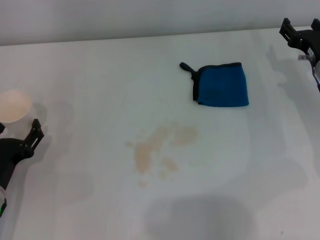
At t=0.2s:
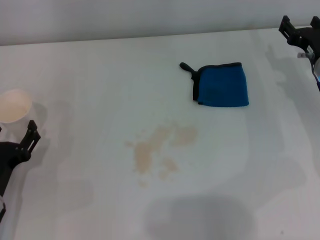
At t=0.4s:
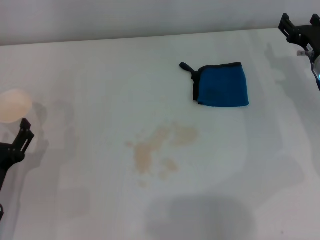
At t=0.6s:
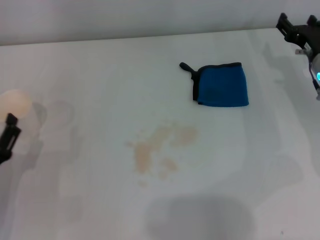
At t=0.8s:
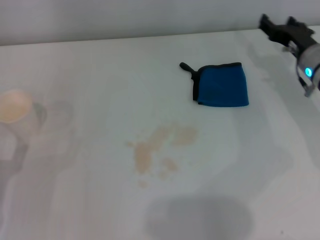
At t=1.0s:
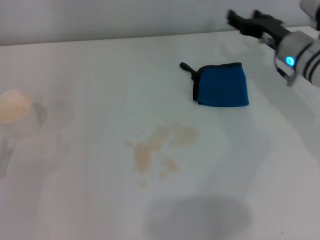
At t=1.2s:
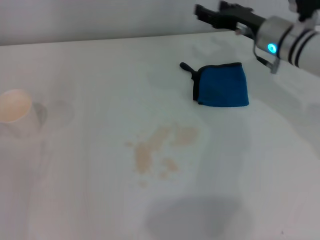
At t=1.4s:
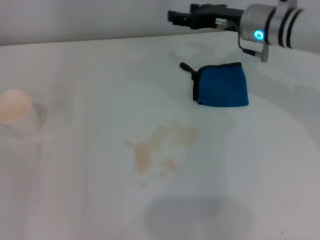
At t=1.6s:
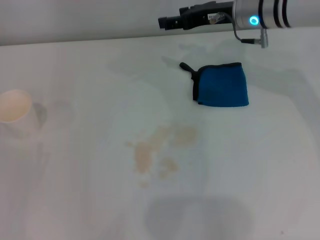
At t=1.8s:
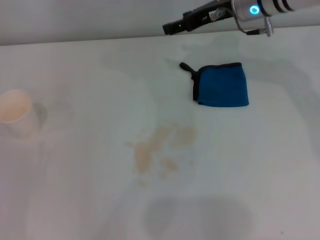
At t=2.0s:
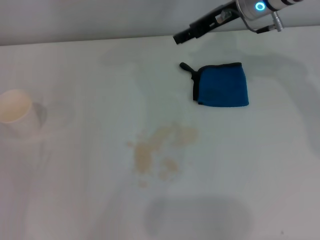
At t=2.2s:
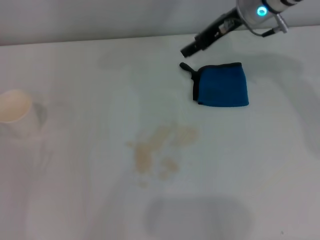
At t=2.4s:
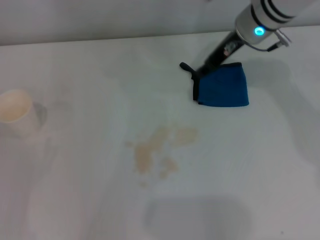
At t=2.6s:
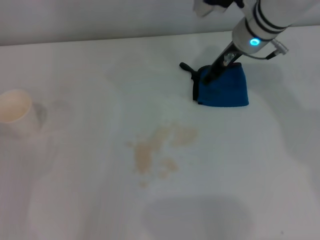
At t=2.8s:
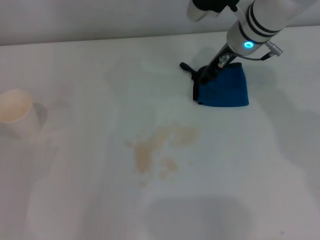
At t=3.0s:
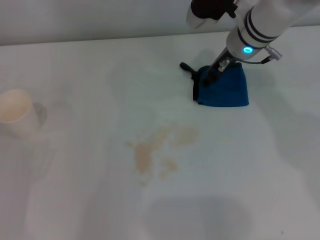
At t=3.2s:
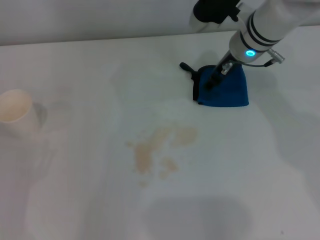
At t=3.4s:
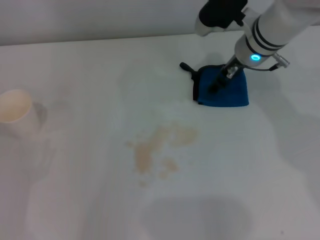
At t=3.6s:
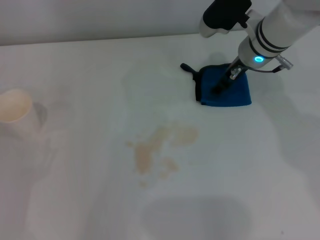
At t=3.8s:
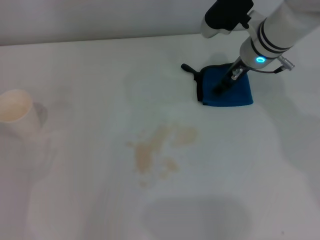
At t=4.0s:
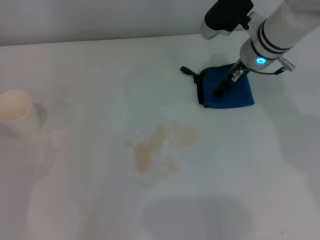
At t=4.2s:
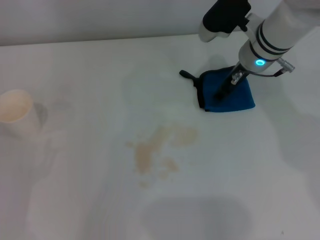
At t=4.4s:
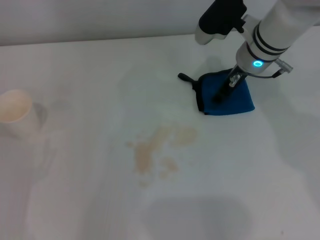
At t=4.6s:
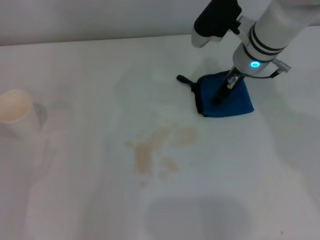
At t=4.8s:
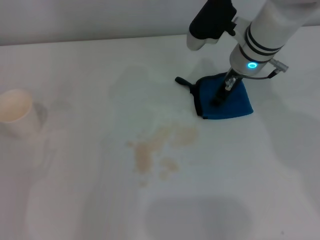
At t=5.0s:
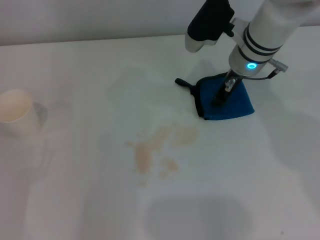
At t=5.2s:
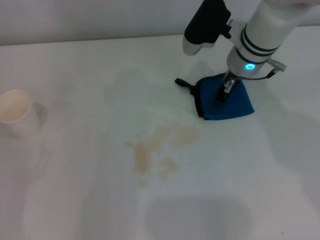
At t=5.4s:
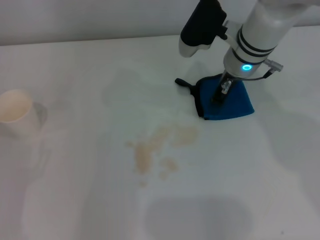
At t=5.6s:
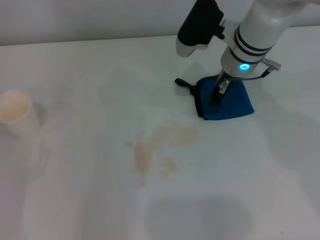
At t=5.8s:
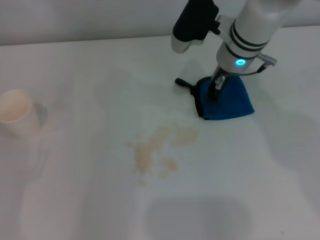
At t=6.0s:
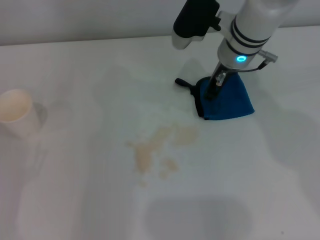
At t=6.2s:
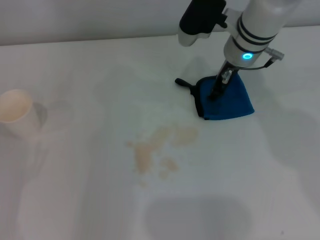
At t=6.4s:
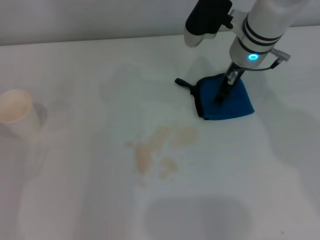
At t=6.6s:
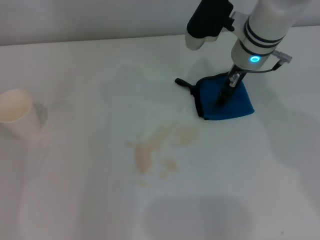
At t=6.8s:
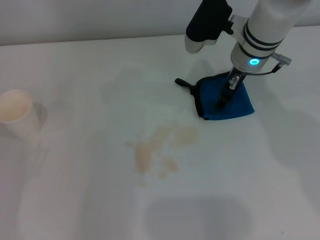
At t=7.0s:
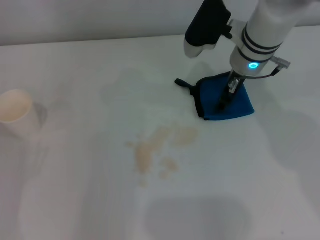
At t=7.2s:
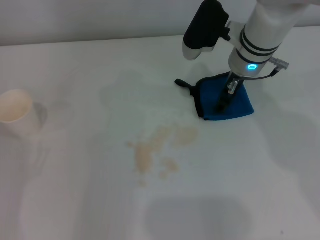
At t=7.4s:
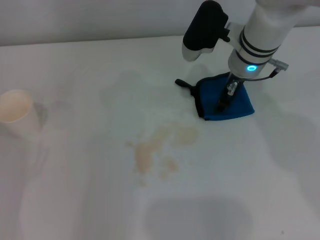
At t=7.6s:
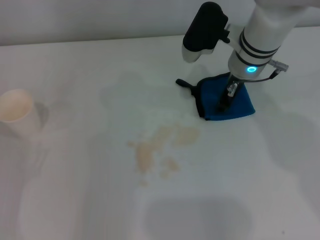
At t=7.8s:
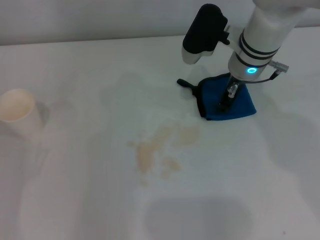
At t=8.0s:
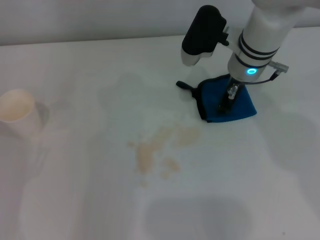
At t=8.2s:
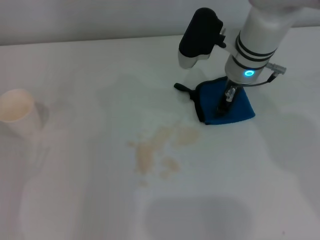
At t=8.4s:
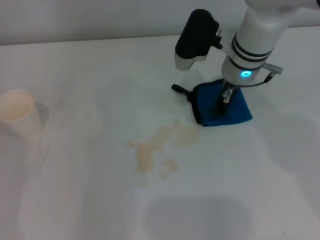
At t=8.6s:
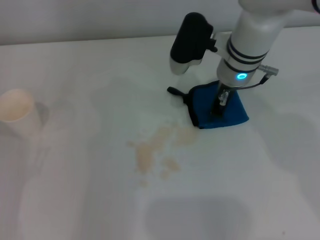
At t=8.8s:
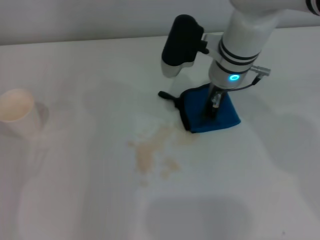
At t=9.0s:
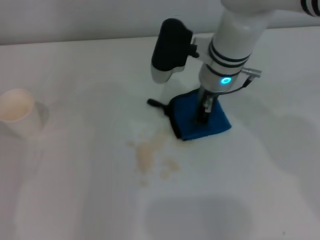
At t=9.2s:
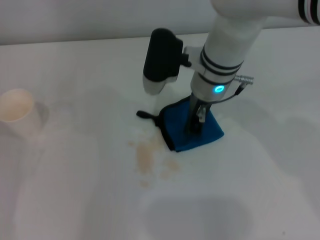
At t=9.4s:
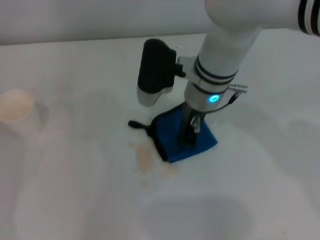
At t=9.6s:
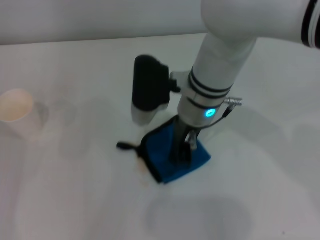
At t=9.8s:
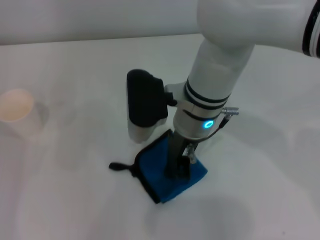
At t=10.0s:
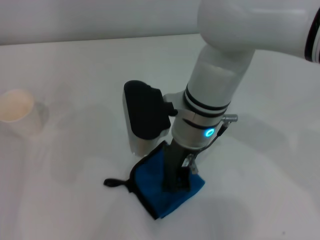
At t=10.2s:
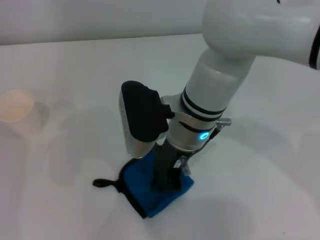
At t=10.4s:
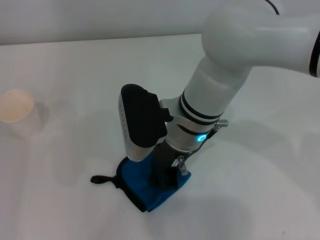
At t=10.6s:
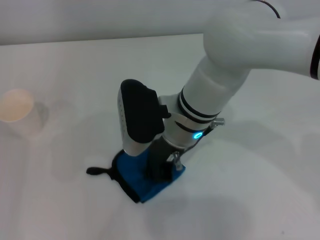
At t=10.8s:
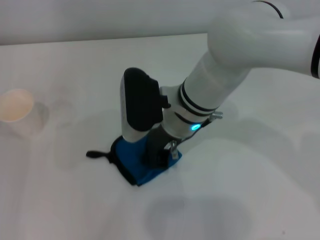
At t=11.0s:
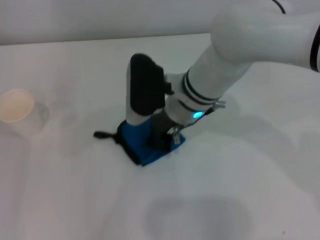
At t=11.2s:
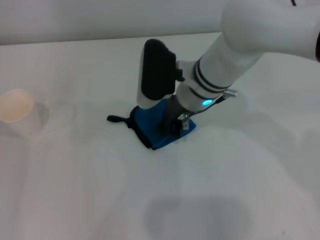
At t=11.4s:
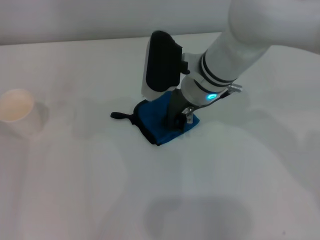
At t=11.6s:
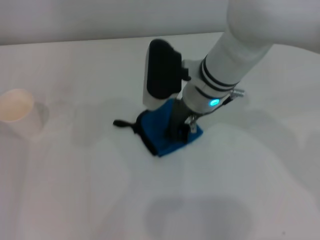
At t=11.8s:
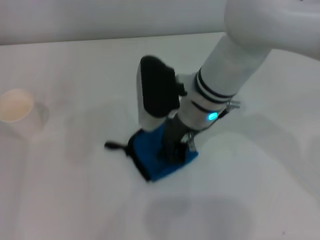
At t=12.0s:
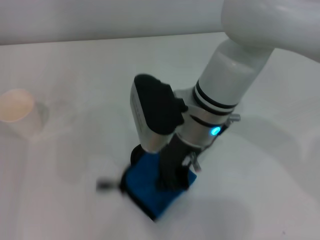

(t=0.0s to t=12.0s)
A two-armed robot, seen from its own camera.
Step, t=0.0s - t=3.6s: Grasp the rag with the right gripper.
t=0.0s - t=1.6s: The left gripper goes roughly 10 cm backward and to the left; the right gripper goes approximately 20 cm to the left, upward and forward.
t=3.0s - t=4.4s: The grippers move only a little.
t=4.4s - t=6.0s: The right gripper closes.
t=6.0s - t=7.6s: The right gripper opens up.
t=7.6s - t=9.0s: The right gripper is displaced to the left by roughly 5 cm, and closes its fingers.
t=9.0s - t=10.4s: The right gripper heads backward and to the left, covering some 10 cm.

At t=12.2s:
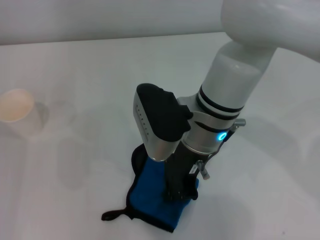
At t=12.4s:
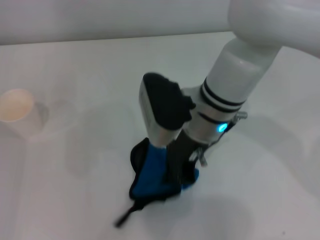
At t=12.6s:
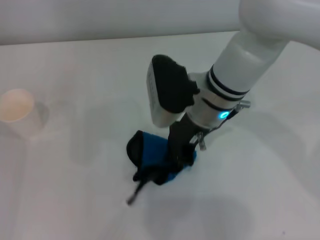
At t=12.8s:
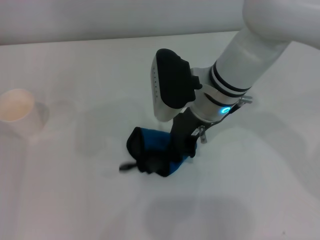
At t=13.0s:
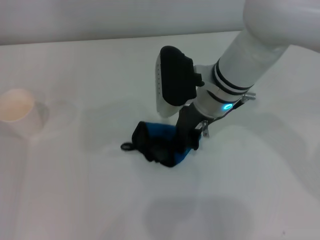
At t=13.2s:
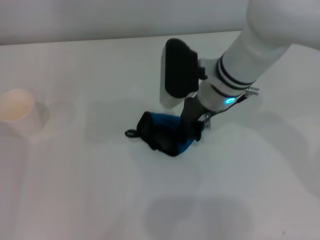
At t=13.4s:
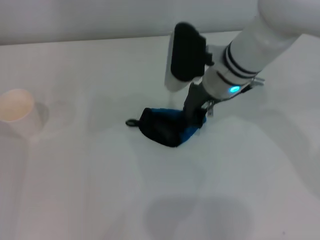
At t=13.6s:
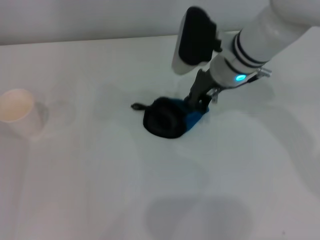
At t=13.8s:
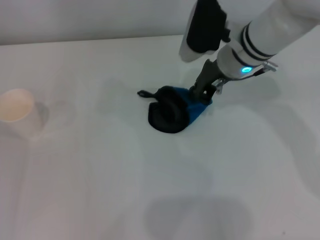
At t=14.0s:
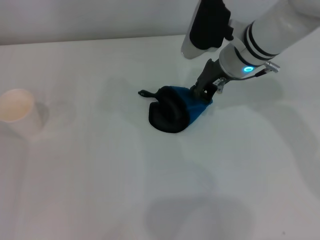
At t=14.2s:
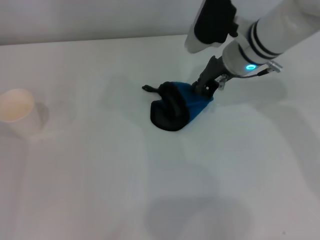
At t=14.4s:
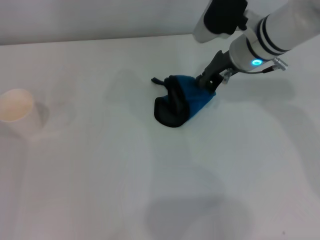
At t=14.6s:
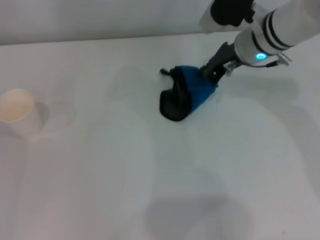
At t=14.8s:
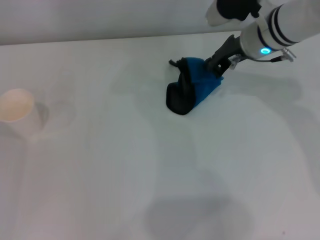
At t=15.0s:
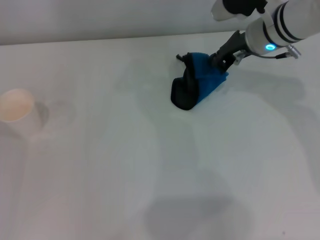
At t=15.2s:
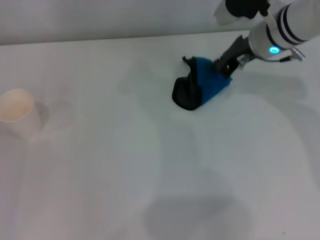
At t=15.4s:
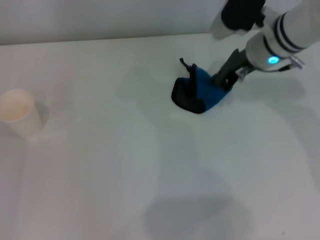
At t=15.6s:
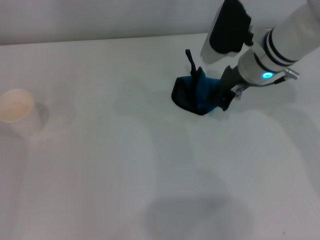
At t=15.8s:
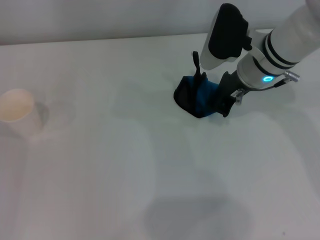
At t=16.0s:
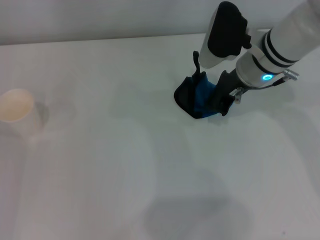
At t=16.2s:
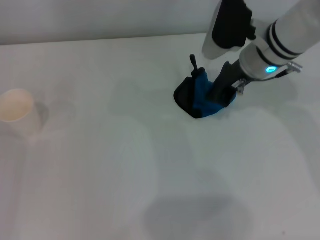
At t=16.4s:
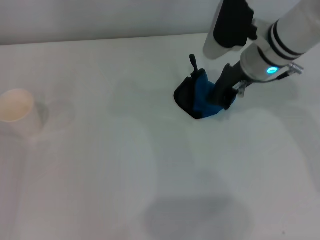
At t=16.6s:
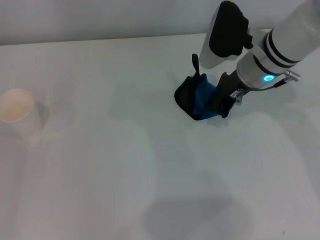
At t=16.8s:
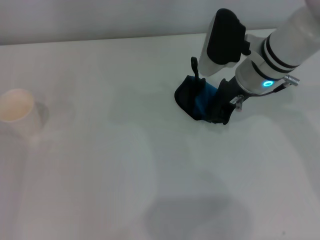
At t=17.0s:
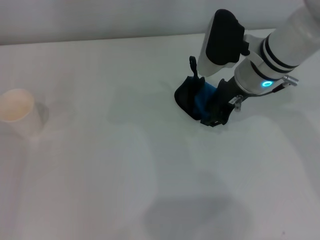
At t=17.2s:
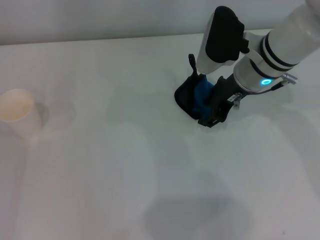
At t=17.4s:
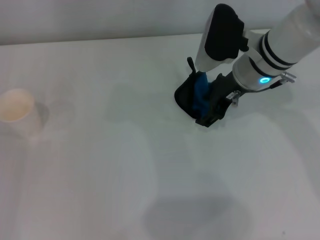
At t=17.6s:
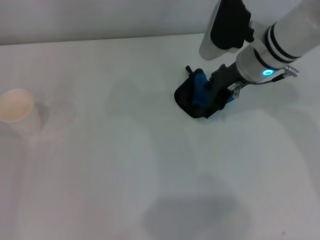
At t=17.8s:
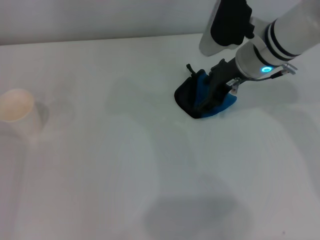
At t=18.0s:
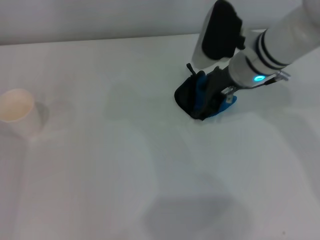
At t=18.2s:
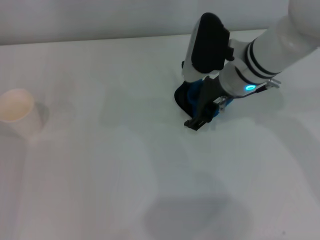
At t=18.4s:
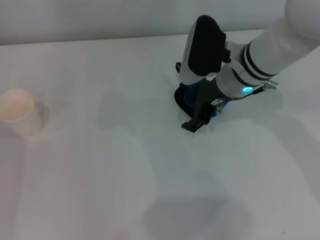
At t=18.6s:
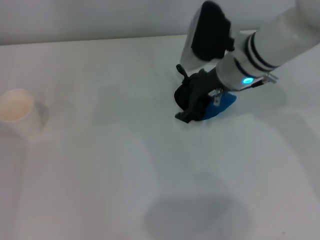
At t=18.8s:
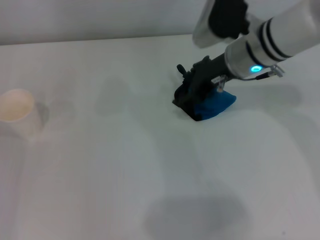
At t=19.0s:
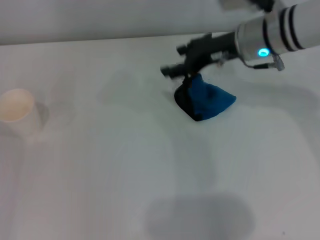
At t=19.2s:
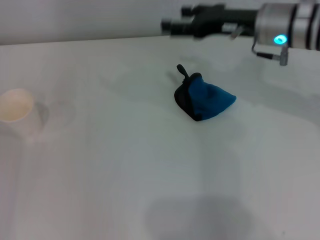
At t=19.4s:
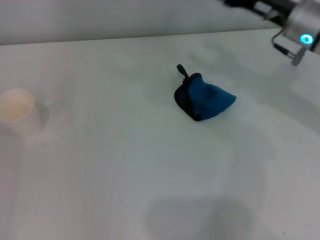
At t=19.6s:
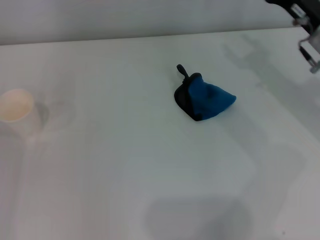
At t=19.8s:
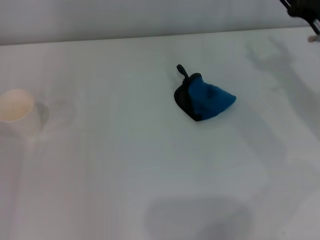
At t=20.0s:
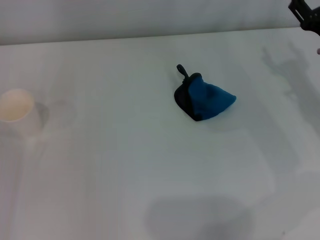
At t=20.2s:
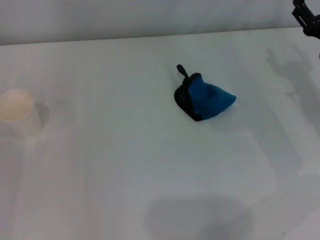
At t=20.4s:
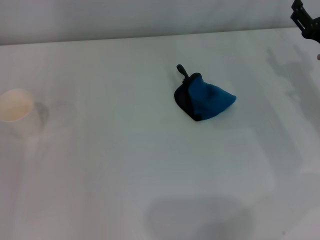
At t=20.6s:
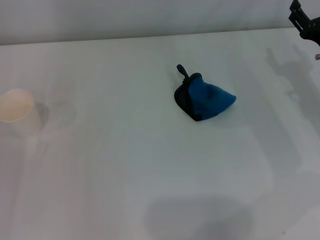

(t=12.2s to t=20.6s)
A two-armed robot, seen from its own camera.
Step, t=12.2s - t=17.8s: Wipe the stains off the table with the right gripper.
Step, t=18.0s - t=18.6s: Place the rag on the table with the right gripper.
t=12.2s - t=13.6s: The right gripper is displaced forward and to the right by approximately 10 cm.
t=13.6s - t=15.0s: The right gripper moves to the right, roughly 5 cm.
t=16.4s - t=17.8s: The right gripper opens up.
t=19.2s - t=20.6s: The right gripper shifts approximately 15 cm to the right, downward and backward.
